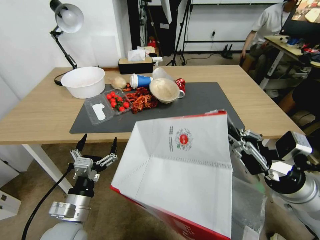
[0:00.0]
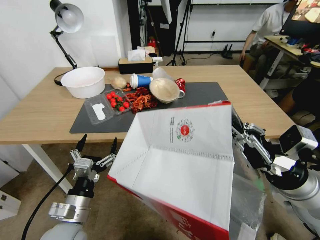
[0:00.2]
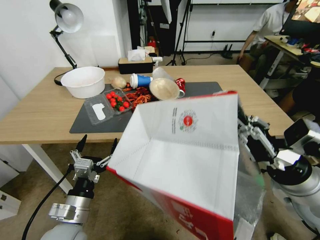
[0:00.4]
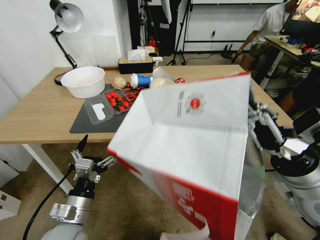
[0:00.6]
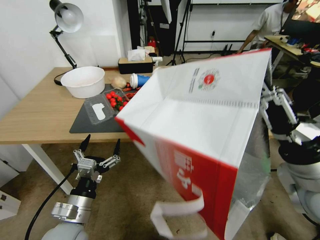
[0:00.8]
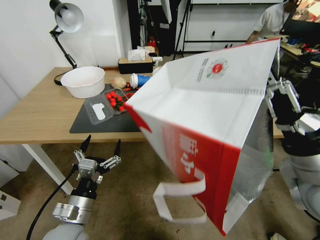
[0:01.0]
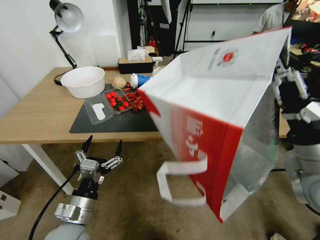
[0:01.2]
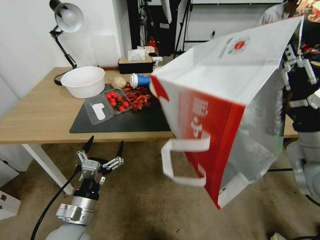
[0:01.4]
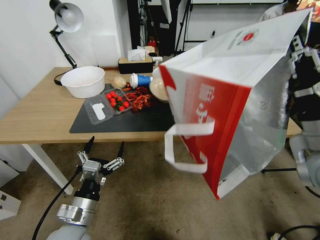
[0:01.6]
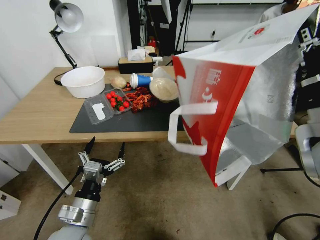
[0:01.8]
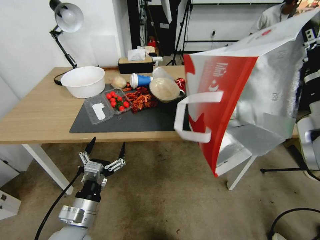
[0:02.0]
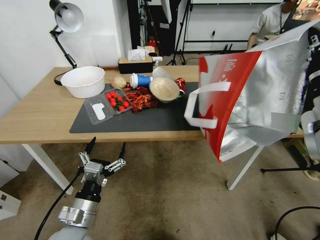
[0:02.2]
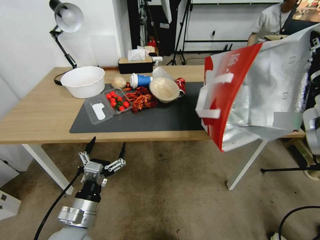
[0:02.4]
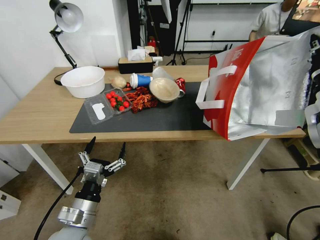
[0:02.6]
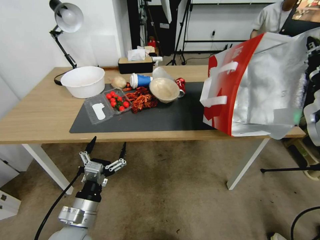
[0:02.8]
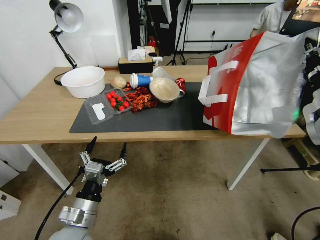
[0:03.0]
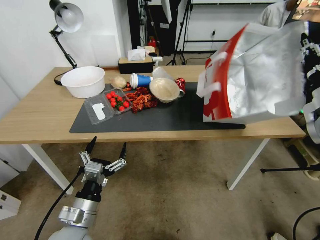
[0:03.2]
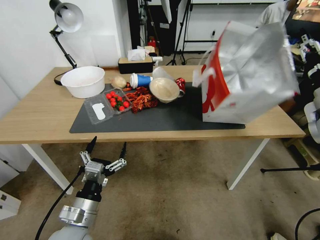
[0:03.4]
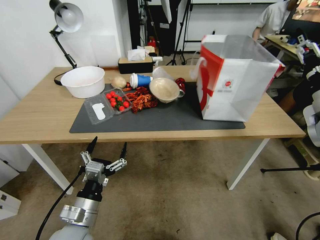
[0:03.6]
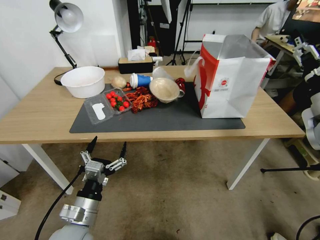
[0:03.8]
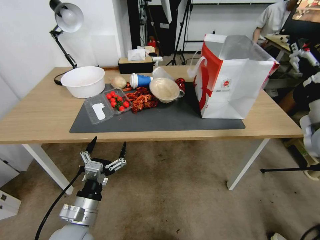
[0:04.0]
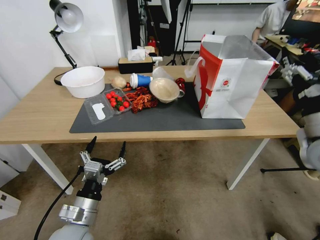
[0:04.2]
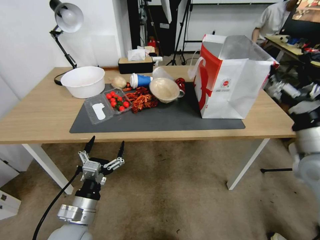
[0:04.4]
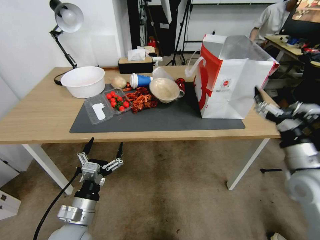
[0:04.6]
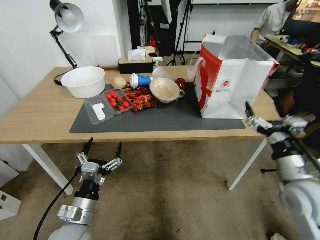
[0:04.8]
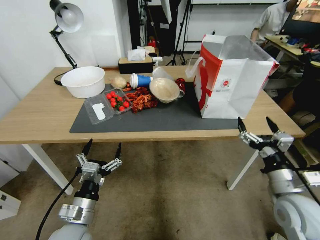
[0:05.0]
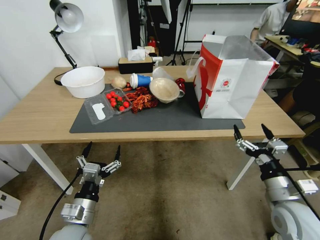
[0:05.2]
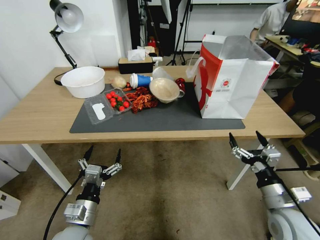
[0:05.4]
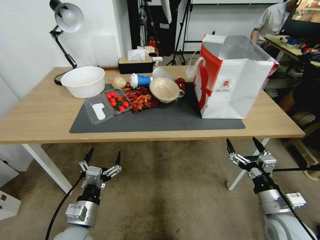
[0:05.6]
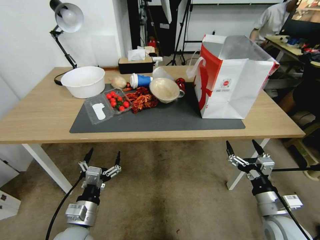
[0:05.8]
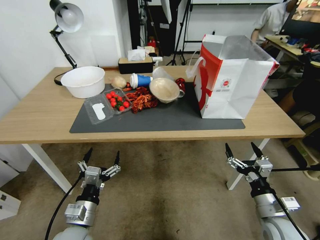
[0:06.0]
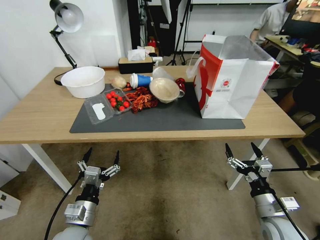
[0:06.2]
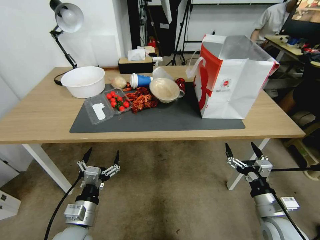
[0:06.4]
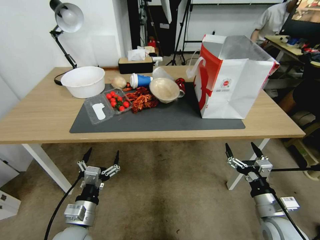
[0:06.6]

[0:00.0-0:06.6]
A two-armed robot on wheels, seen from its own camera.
Task of the whole recording: Pick up the food delivery bag from the floor and place it on the table.
0:00.0 to 0:01.6: The right gripper shifts roughly 10 cm upward.
0:01.6 to 0:03.2: The right gripper goes about 15 cm forward and to the right.
0:03.2 to 0:05.0: The right gripper is displaced downward and backward by some 20 cm, and opens.
0:05.0 to 0:06.6: The right gripper moves downward, about 10 cm.

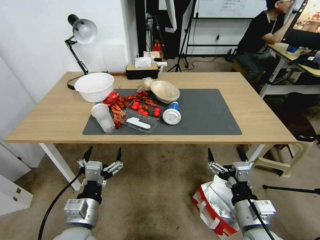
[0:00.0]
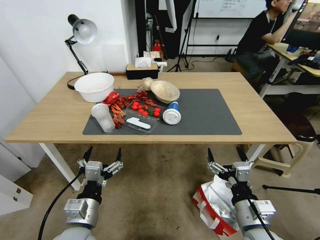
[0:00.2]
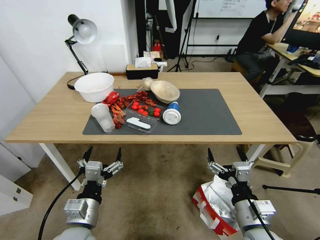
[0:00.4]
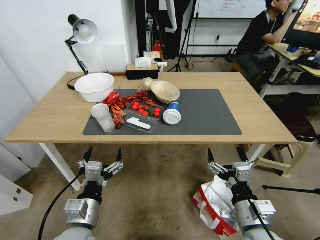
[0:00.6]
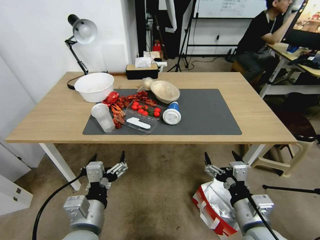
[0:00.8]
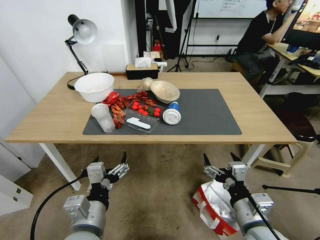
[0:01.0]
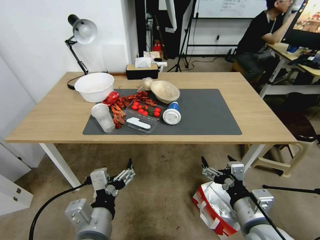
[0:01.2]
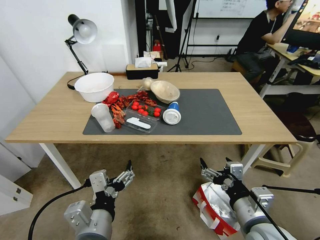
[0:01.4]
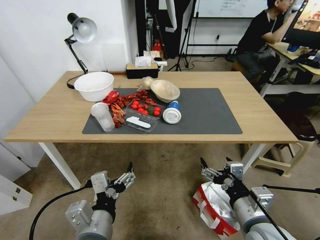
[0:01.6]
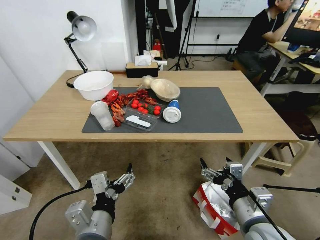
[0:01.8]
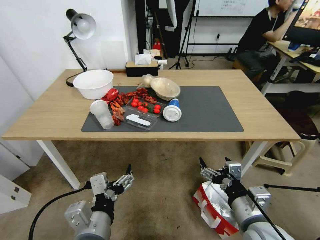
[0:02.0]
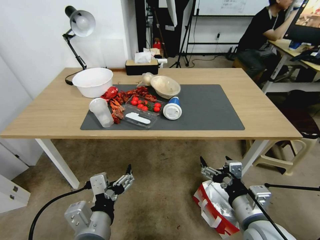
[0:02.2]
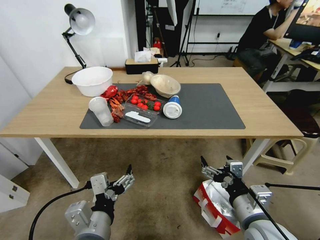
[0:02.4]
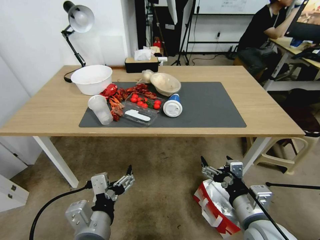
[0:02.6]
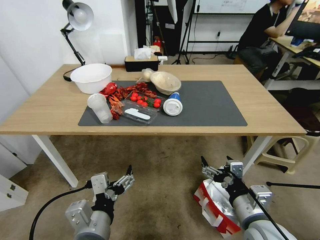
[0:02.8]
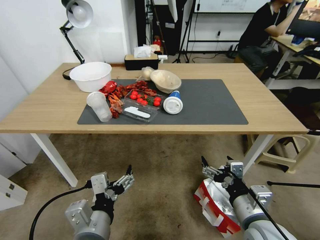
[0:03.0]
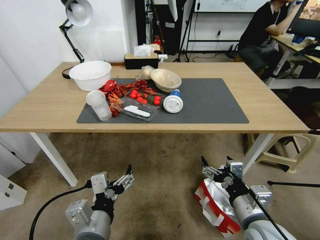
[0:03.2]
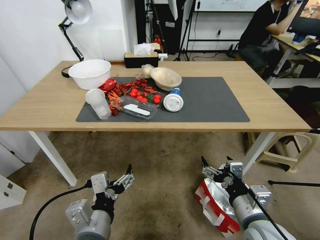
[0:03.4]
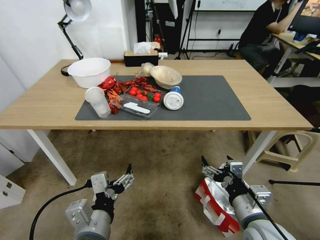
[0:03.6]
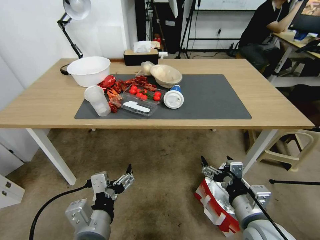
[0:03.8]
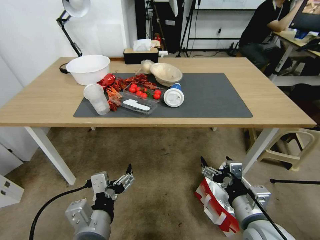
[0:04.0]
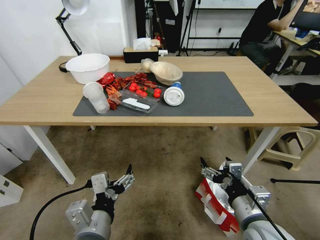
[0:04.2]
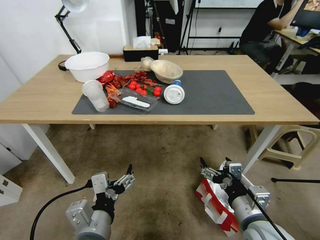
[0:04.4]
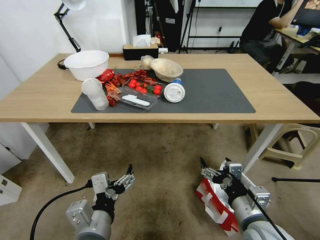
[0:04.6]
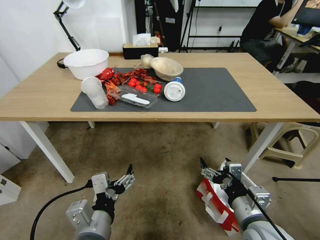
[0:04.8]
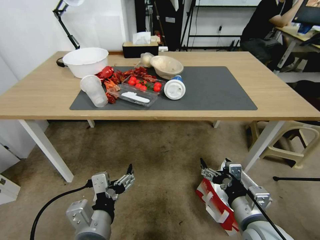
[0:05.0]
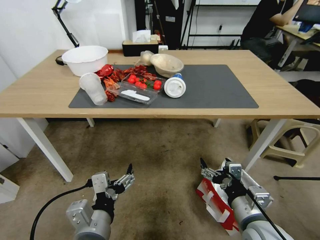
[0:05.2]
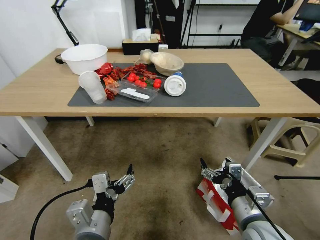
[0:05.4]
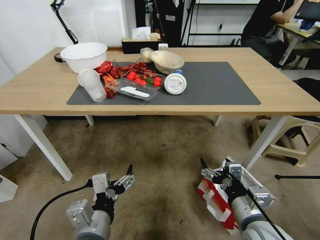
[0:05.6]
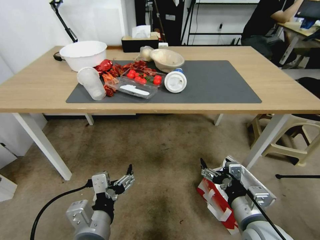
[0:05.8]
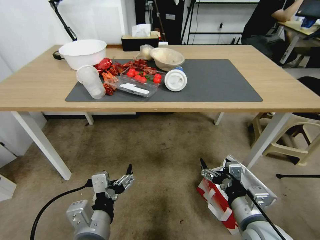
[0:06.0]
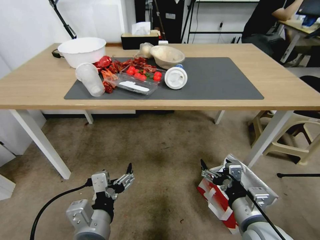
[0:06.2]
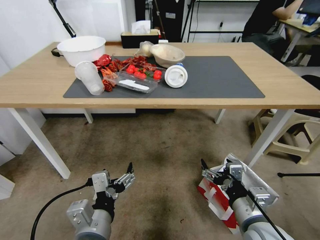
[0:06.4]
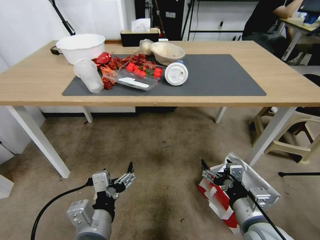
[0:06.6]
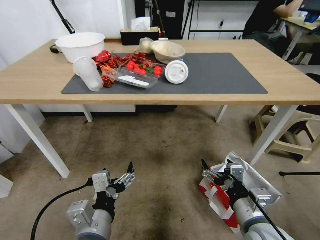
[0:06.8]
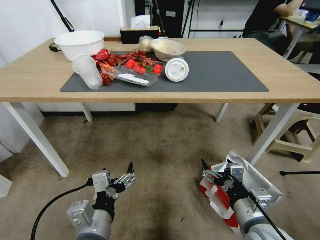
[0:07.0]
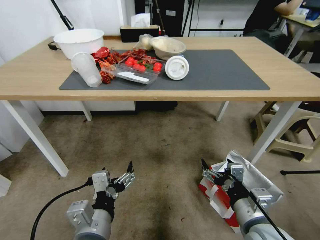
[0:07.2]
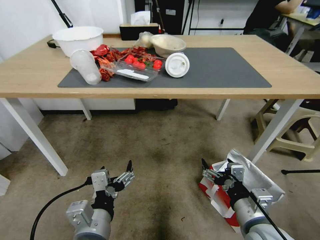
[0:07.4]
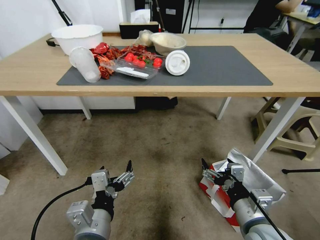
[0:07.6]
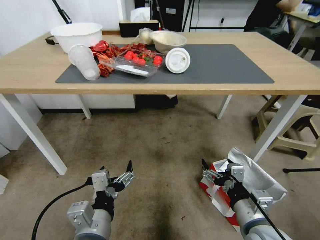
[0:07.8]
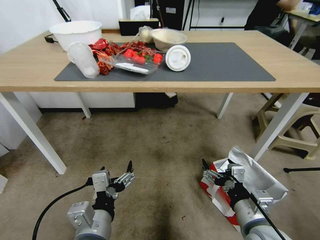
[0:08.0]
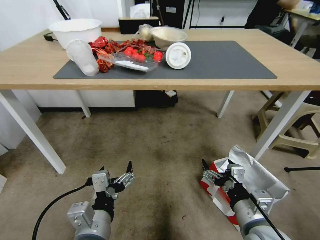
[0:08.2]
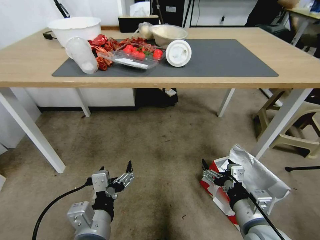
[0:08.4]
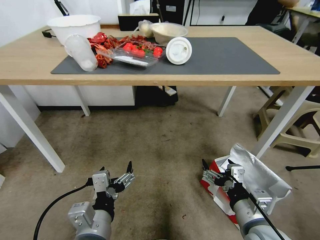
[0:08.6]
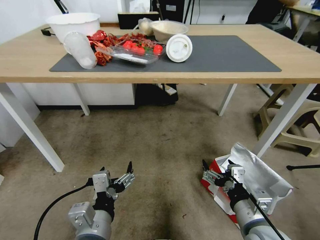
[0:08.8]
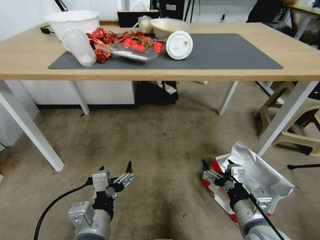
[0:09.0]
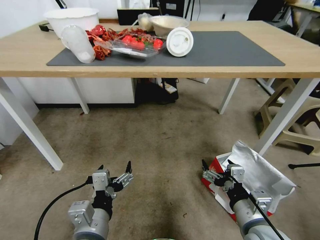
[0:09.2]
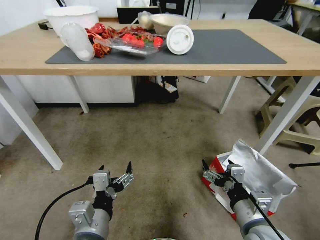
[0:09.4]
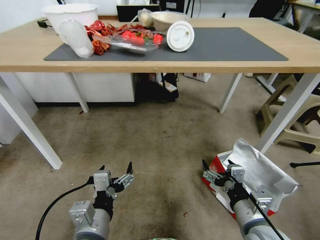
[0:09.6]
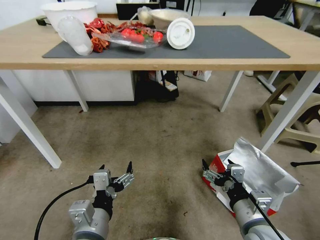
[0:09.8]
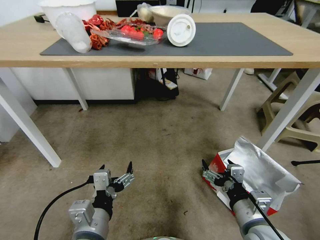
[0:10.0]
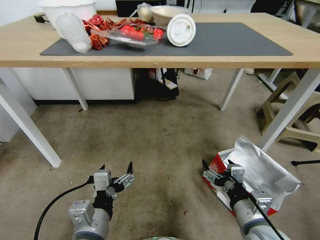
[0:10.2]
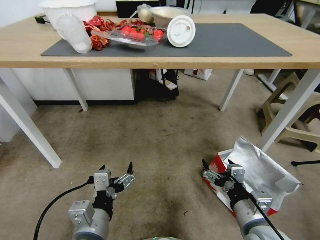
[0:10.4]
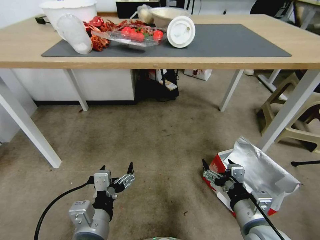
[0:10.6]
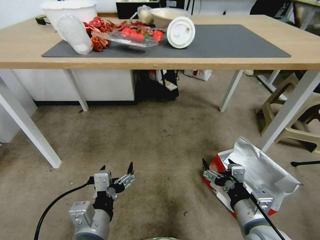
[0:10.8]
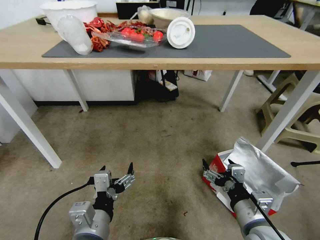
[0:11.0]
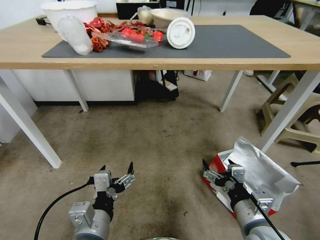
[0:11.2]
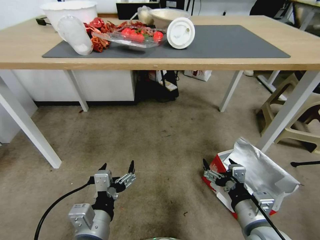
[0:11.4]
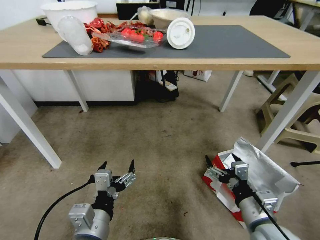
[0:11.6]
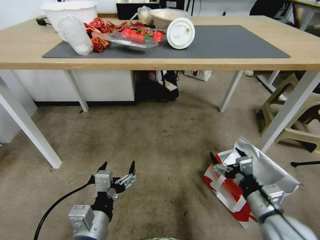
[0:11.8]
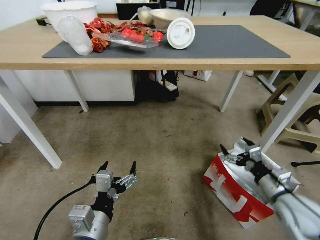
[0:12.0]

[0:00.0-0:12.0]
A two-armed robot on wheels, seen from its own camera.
Task of the whole recording: Pick up the food delivery bag from the floor and place it on the table.
0:10.4 to 0:12.0: The right gripper is displaced to the right and forward by about 15 cm.

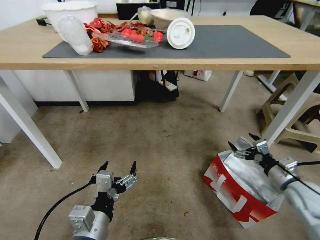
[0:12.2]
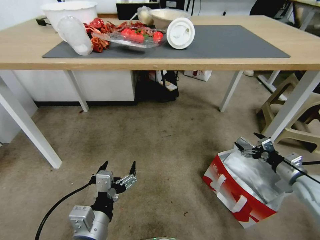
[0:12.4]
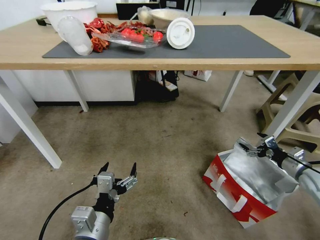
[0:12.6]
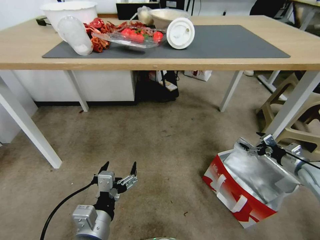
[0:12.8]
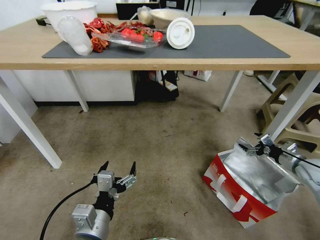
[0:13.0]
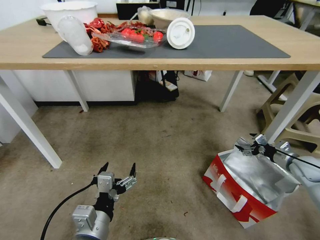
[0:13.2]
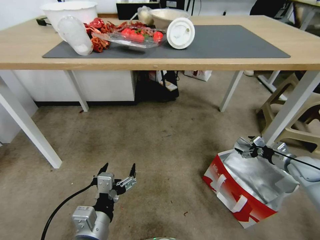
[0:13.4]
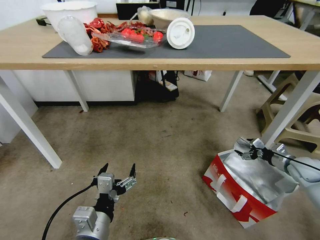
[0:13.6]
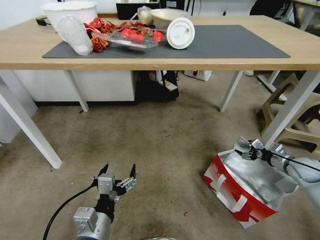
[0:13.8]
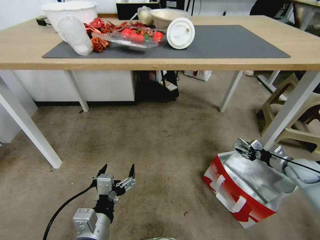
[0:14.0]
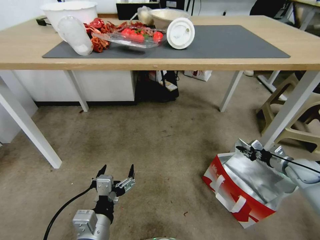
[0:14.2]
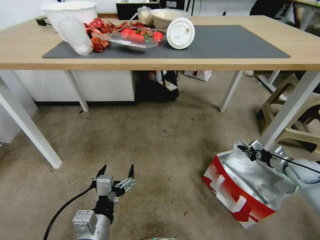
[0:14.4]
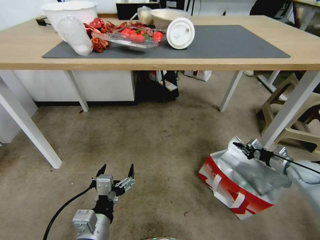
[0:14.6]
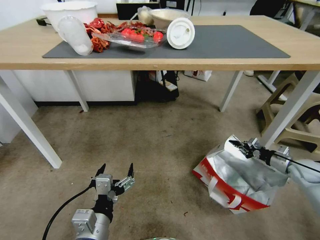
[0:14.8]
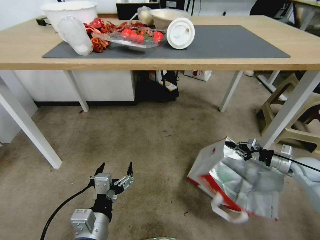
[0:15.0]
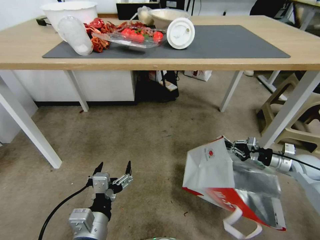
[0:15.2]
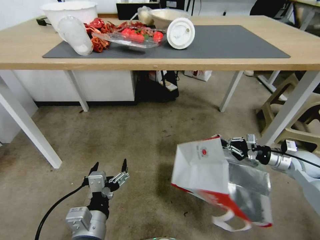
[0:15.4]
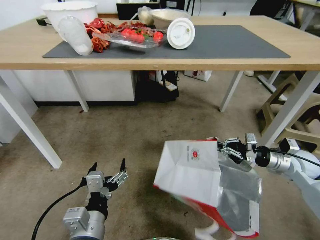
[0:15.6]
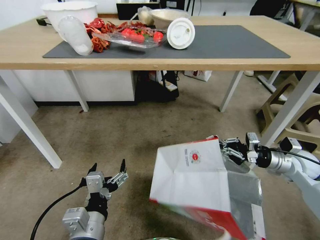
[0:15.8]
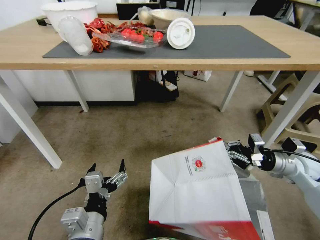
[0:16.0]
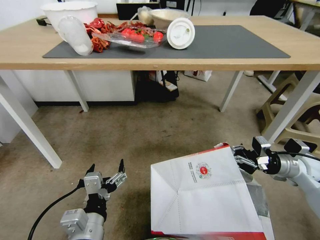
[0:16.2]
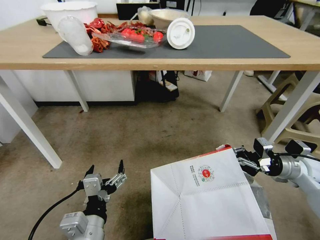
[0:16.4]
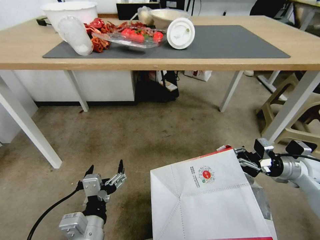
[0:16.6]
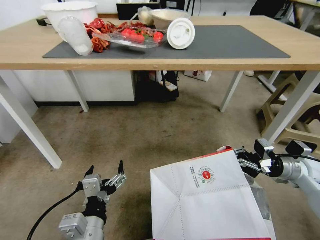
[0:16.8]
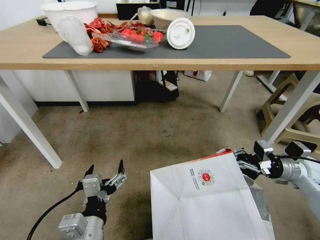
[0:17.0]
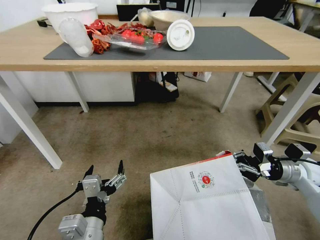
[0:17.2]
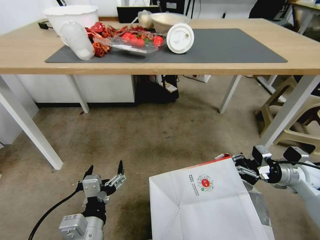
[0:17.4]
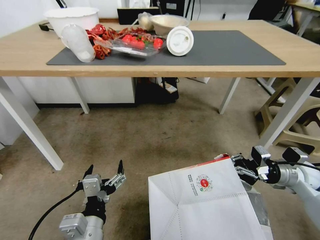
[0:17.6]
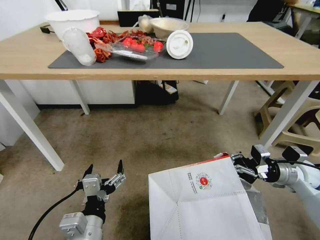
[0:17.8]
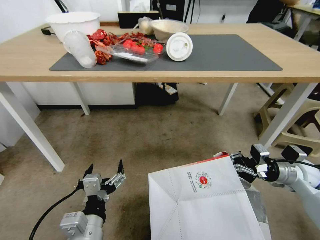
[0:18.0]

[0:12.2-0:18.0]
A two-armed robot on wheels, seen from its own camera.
Task of the whole recording: Pick up the food delivery bag from the floor and place it on the table.
0:12.2 to 0:13.6: The right gripper moves forward and to the right, some 15 cm.
0:13.6 to 0:15.0: The right gripper closes up.
0:15.0 to 0:16.6: The right gripper moves to the left and upward, some 10 cm.
